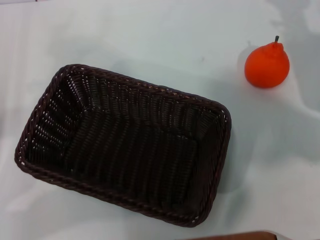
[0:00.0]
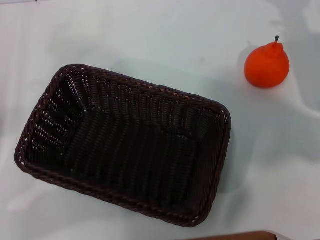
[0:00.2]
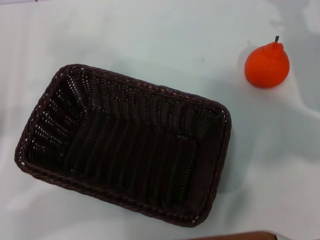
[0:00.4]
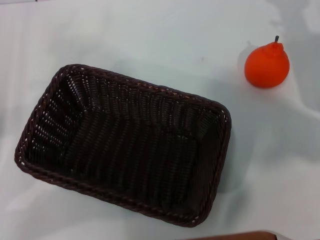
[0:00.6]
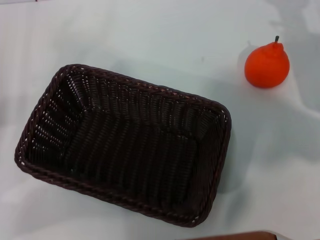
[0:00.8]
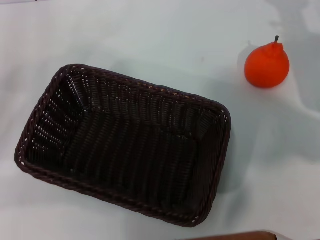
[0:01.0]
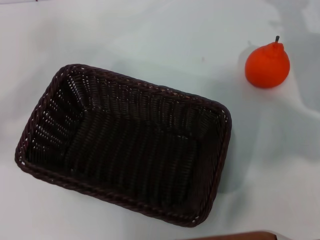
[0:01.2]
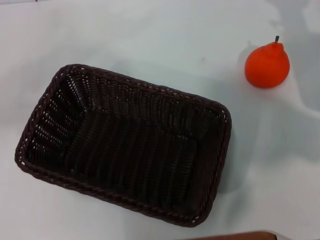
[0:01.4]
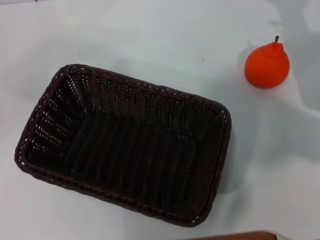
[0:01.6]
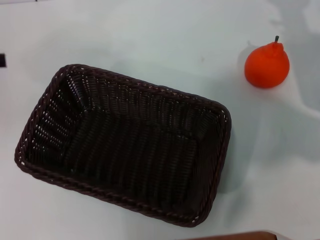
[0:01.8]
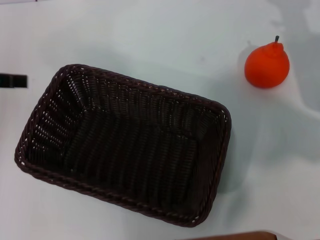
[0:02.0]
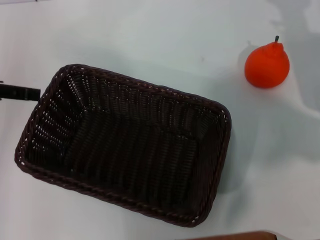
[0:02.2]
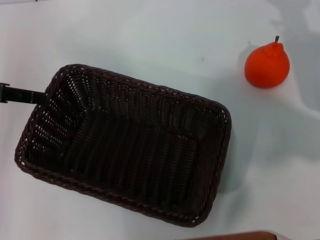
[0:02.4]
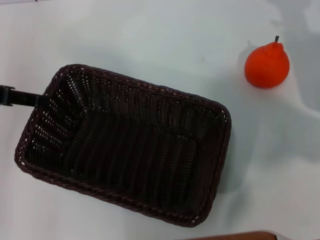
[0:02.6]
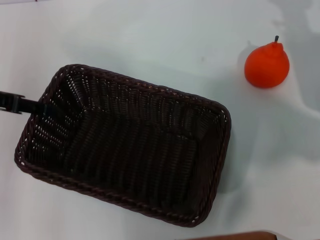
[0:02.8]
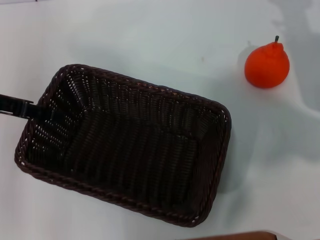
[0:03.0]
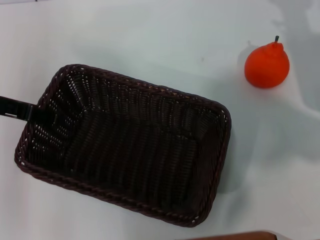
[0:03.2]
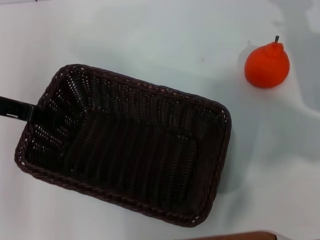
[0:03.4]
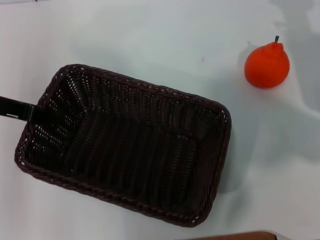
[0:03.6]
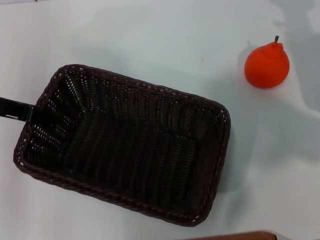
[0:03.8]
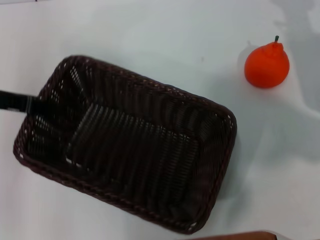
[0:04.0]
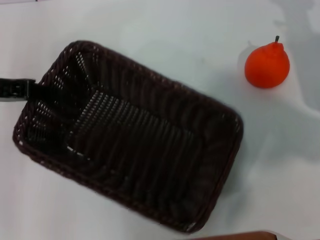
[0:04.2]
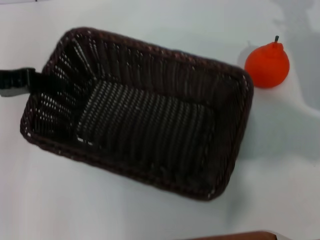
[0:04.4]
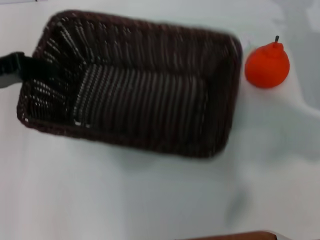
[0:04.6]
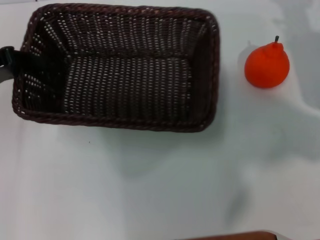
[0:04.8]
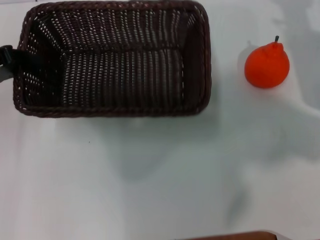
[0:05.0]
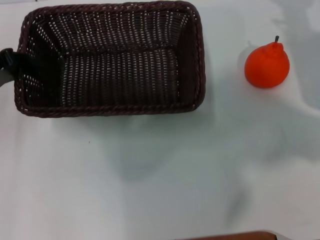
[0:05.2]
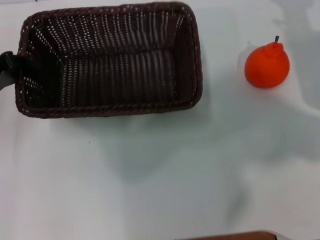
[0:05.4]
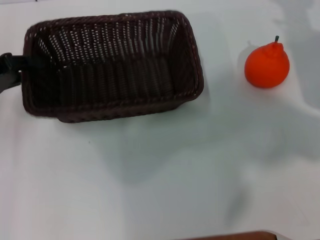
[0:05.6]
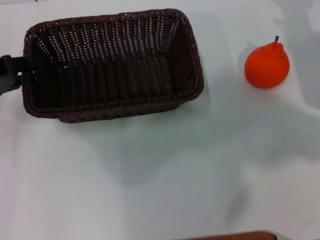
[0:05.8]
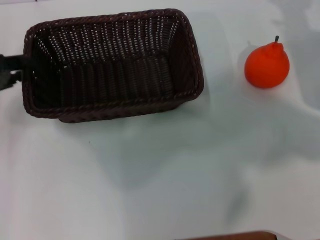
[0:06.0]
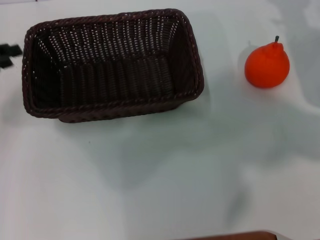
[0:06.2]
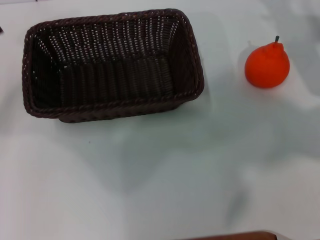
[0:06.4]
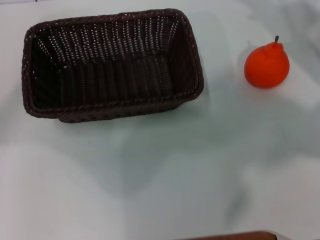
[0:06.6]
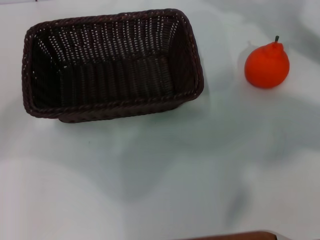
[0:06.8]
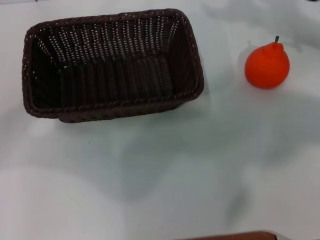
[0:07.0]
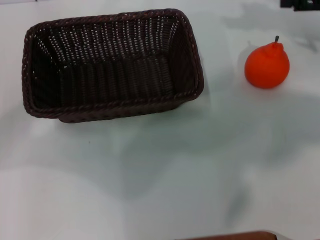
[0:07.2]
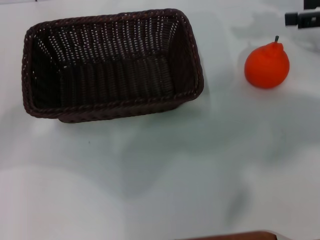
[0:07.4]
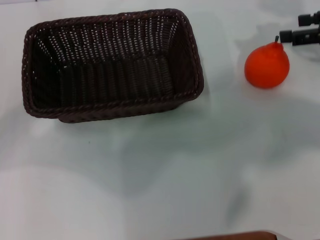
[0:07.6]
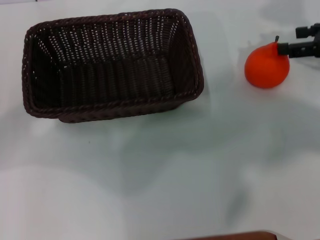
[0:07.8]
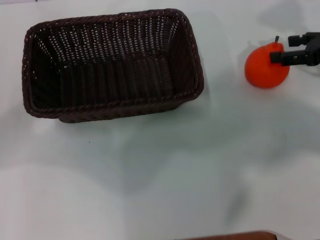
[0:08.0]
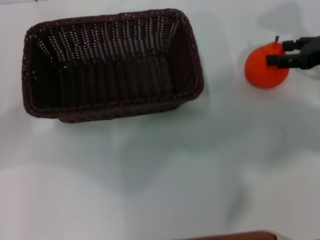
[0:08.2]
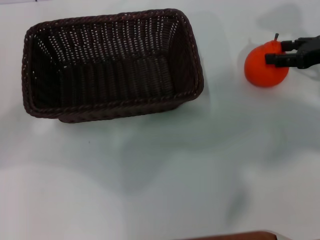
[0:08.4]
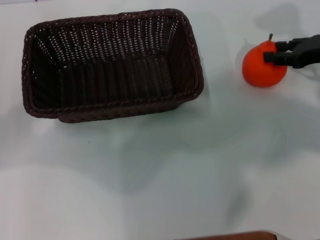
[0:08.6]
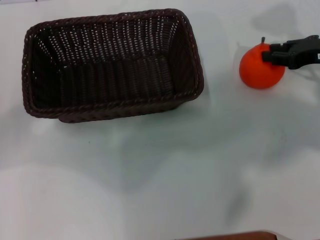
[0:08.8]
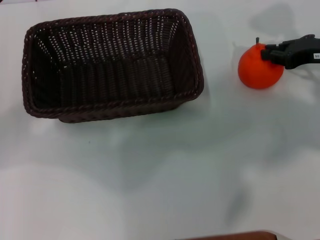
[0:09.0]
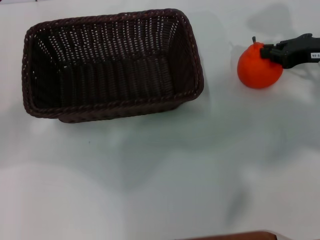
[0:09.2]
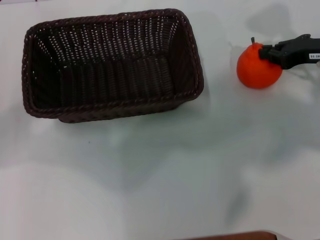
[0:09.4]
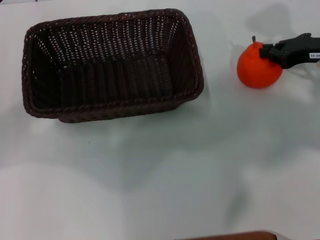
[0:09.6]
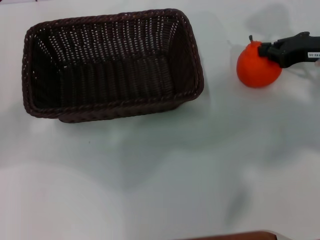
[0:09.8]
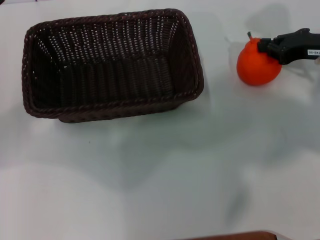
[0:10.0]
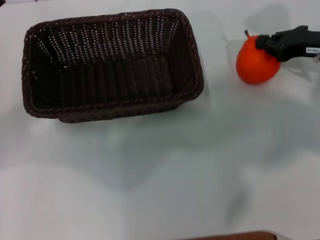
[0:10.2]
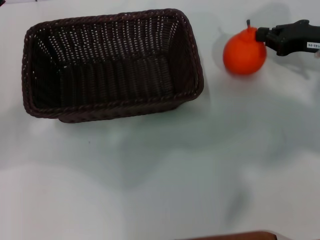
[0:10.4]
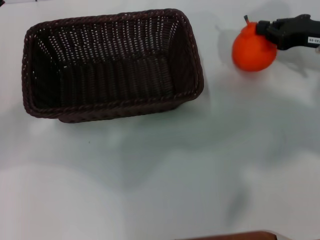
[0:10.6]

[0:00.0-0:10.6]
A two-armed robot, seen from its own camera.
Task of the whole recording: the left gripper pick up the black basket and place it horizontally in the middle of the table, the right gripper pick up the orange and place it into the black basket.
Step, 0:00.0 to 0:04.0: Pick up the dark basket with the left gripper.
Step, 0:04.2 to 0:06.2: Place the dark basket in the center of view with the left gripper.
0:00.0 to 0:01.6: The left gripper is displaced upward and forward by approximately 15 cm.
0:01.6 to 0:03.0: The left gripper moves to the right, about 10 cm.
0:03.0 to 0:04.6: The left gripper closes up.
0:04.6 to 0:06.0: The left gripper shifts by some 5 cm, and opens.
0:06.0 to 0:07.6: The right gripper travels upward by approximately 10 cm. The left gripper opens its fingers.
0:07.6 to 0:09.0: The right gripper moves downward, approximately 5 cm, and closes its fingers.
0:09.0 to 0:10.6: The right gripper closes its fingers.

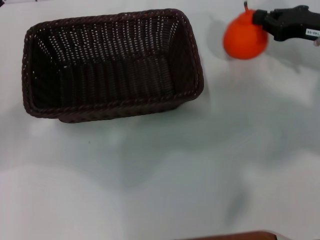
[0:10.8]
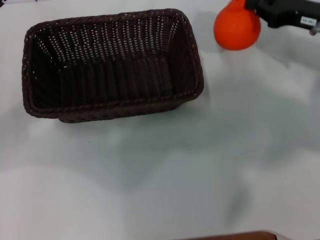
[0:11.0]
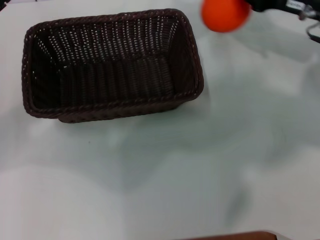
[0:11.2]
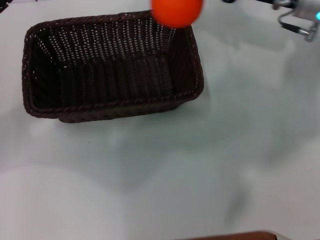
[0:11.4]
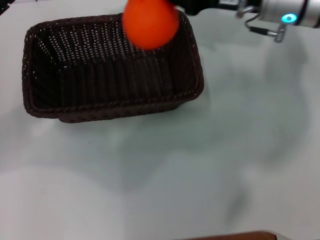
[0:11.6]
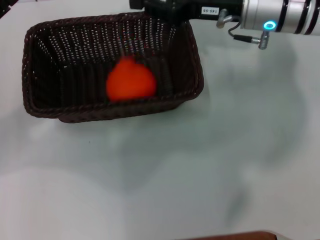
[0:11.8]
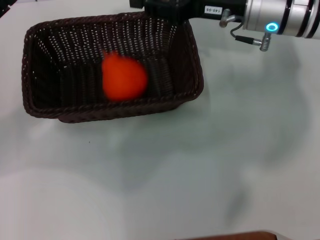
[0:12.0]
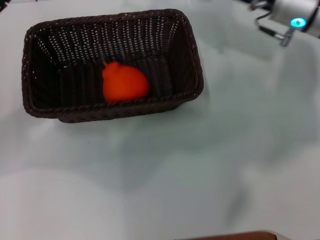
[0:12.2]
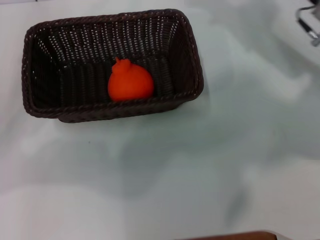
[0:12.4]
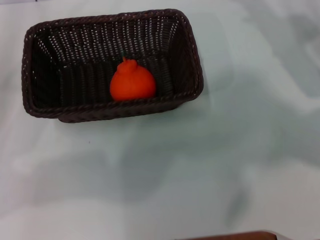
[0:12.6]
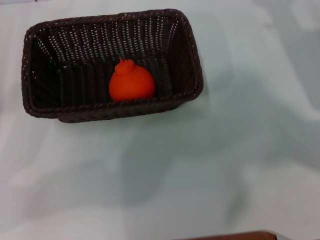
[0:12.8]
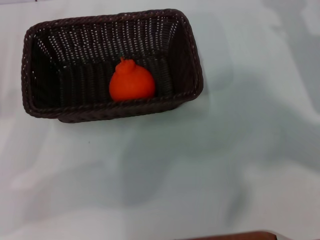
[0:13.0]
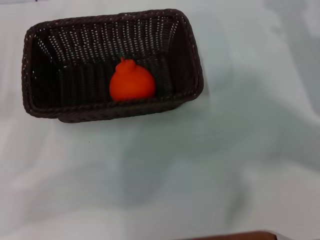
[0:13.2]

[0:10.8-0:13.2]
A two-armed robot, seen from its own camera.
Task of the whole recording: the left gripper pick up the black basket and place it horizontally in the middle of the table, the right gripper pick up the orange and place it into the black basket.
Step, 0:11.0 to 0:11.6: Place the orange into the light basket with the right gripper.
0:10.8 to 0:12.0: The right gripper moves to the left, approximately 15 cm.
0:12.0 to 0:13.2: The right gripper goes some 20 cm to the right, downward and backward, and opens; the left gripper shifts roughly 5 cm backward.
